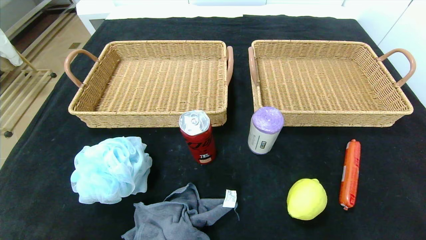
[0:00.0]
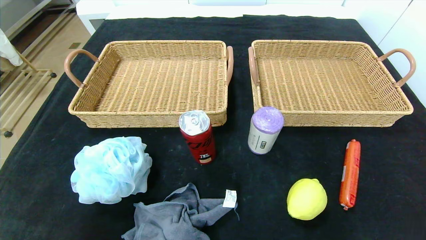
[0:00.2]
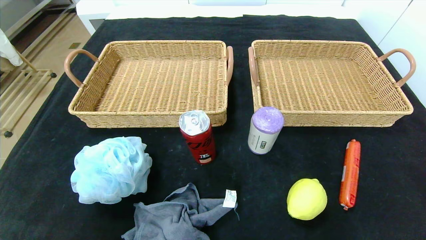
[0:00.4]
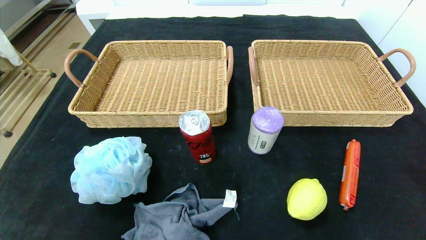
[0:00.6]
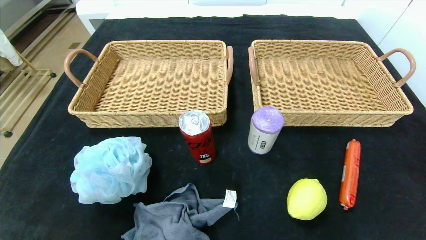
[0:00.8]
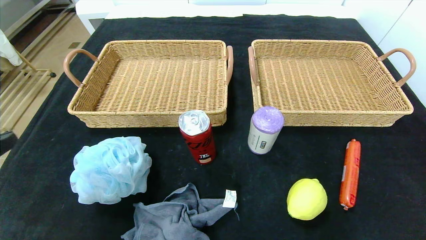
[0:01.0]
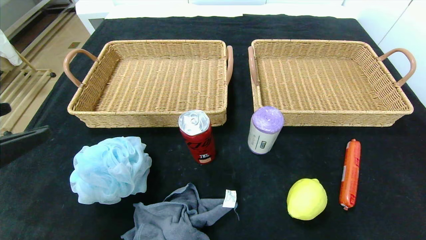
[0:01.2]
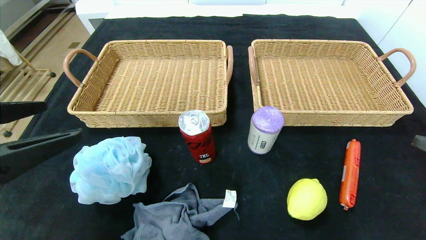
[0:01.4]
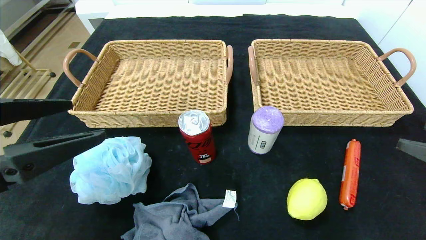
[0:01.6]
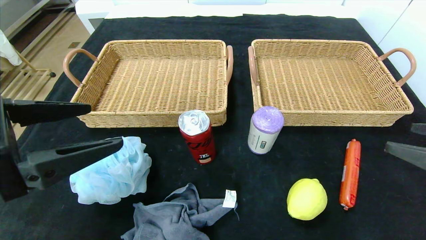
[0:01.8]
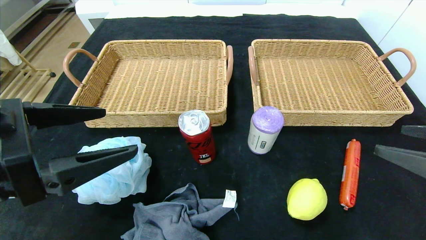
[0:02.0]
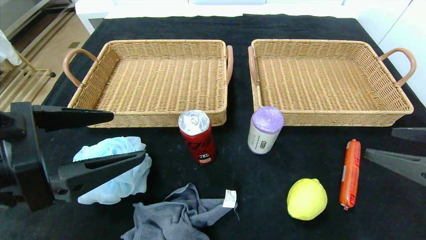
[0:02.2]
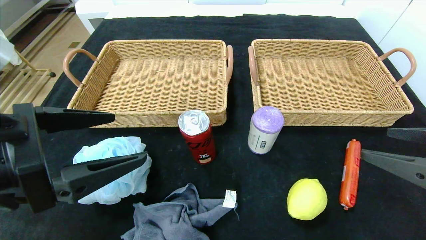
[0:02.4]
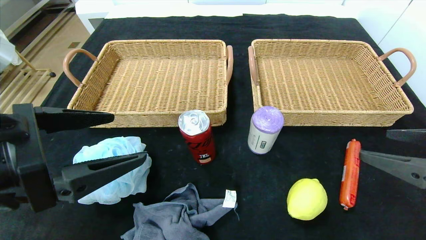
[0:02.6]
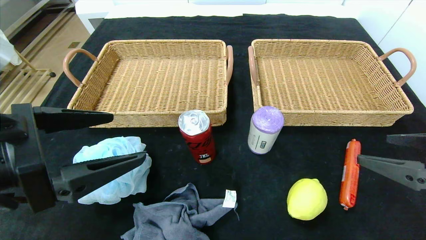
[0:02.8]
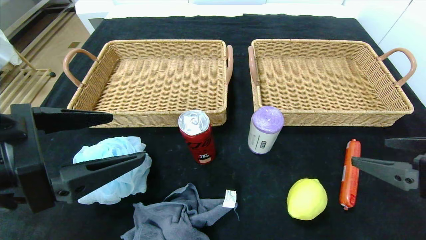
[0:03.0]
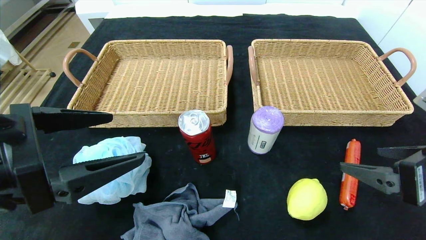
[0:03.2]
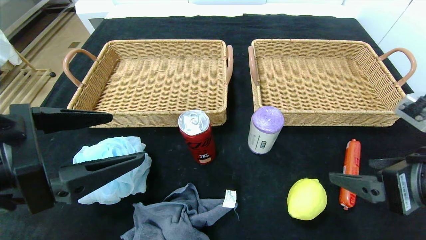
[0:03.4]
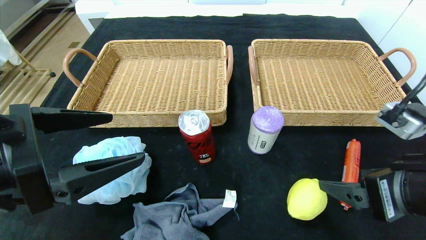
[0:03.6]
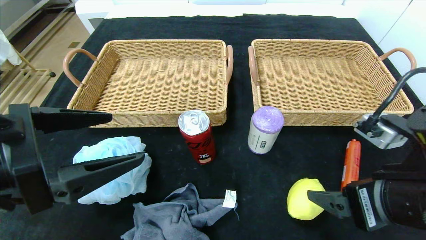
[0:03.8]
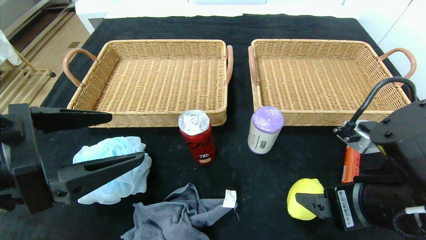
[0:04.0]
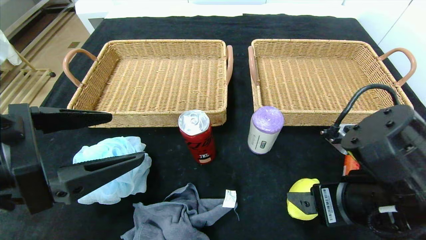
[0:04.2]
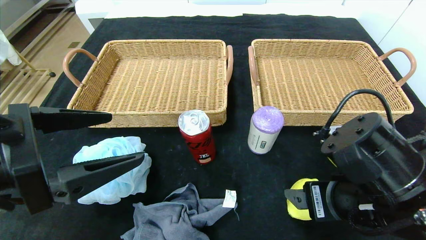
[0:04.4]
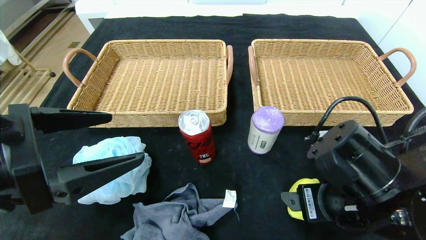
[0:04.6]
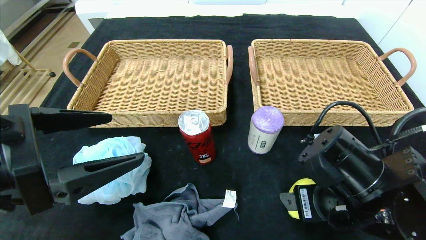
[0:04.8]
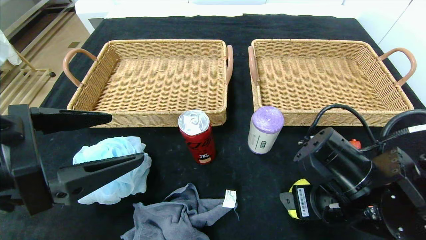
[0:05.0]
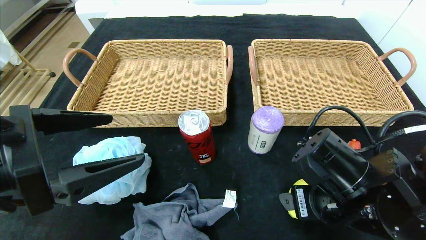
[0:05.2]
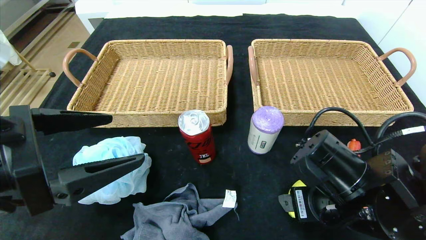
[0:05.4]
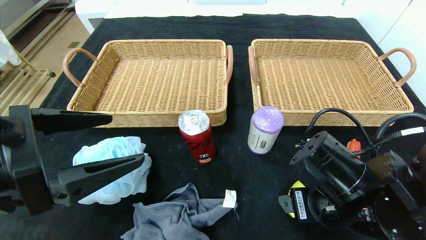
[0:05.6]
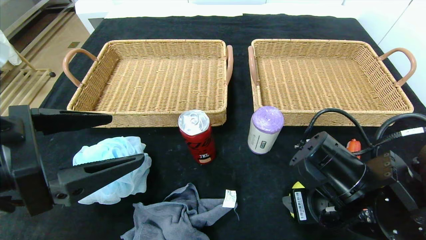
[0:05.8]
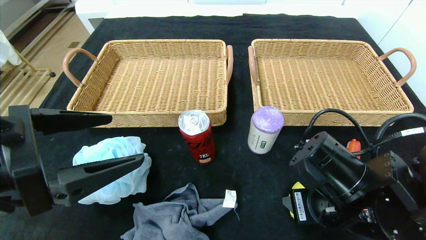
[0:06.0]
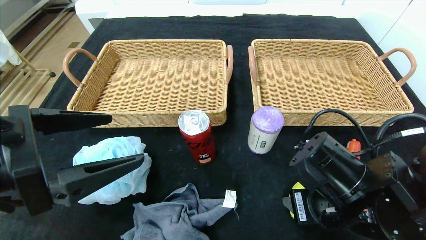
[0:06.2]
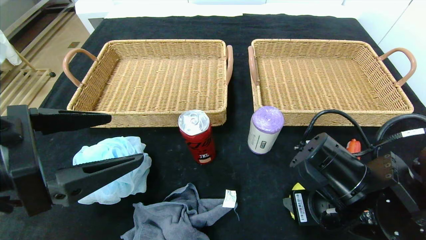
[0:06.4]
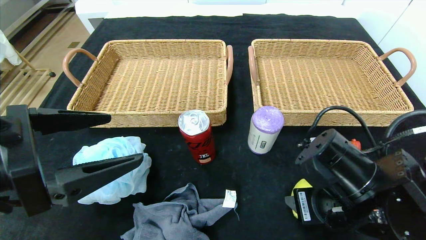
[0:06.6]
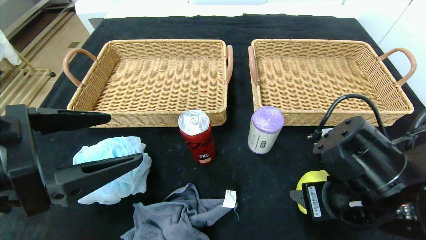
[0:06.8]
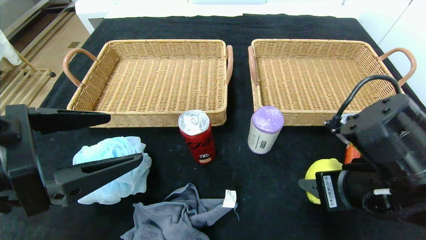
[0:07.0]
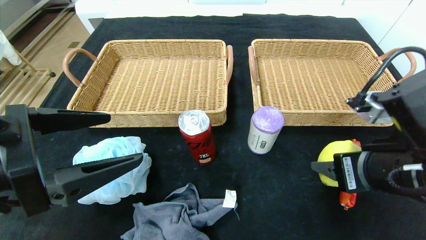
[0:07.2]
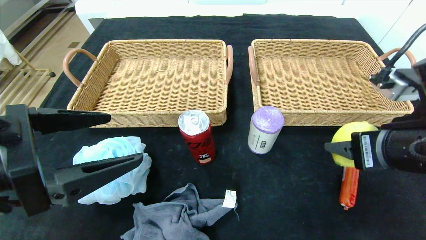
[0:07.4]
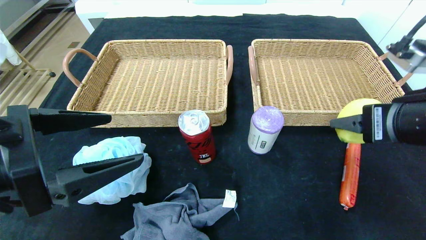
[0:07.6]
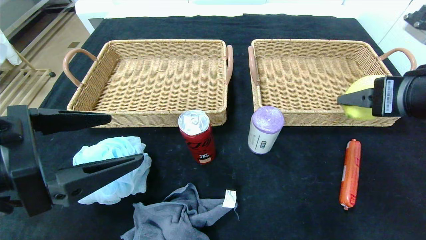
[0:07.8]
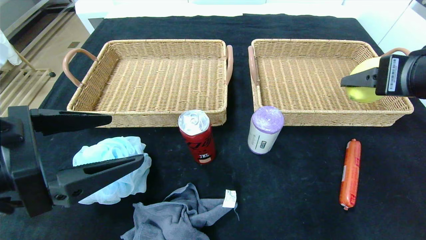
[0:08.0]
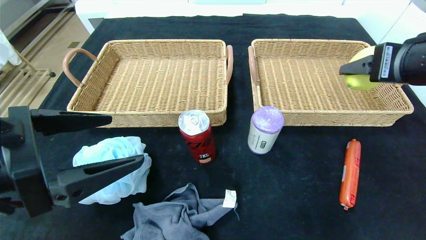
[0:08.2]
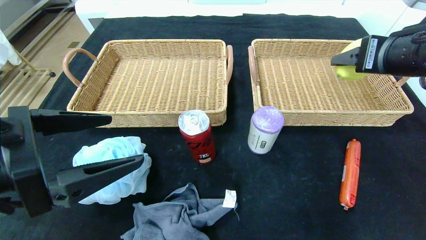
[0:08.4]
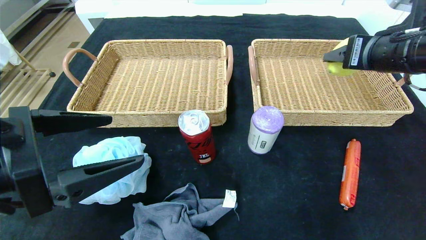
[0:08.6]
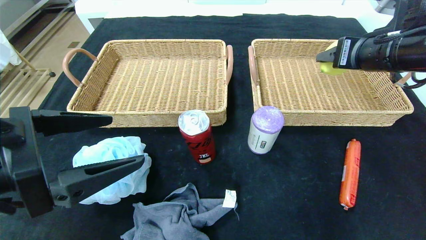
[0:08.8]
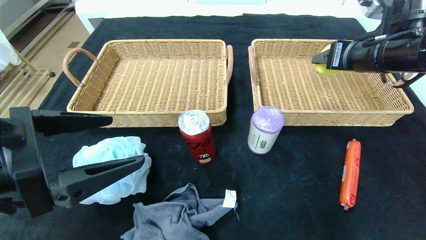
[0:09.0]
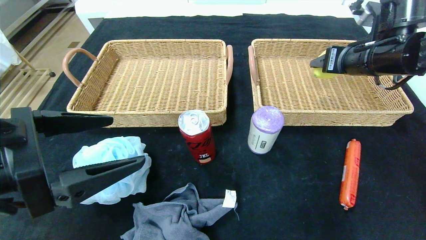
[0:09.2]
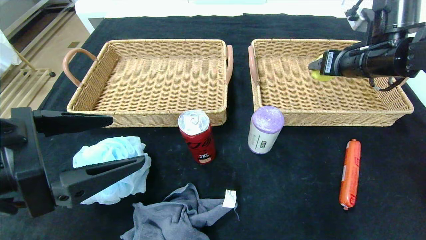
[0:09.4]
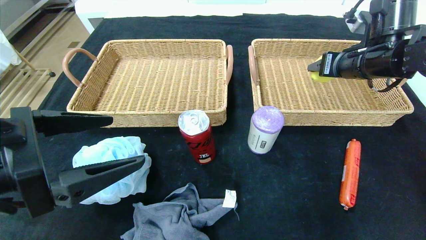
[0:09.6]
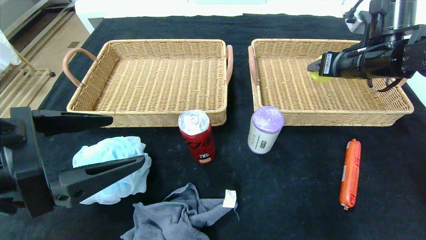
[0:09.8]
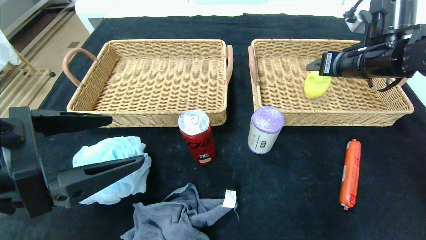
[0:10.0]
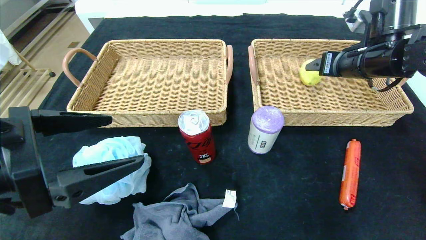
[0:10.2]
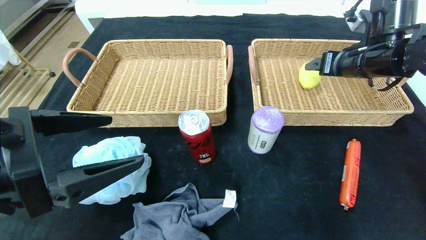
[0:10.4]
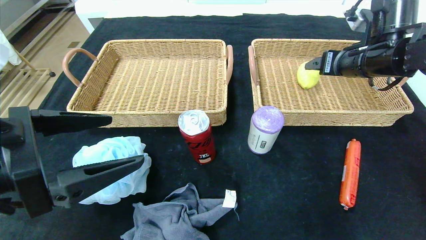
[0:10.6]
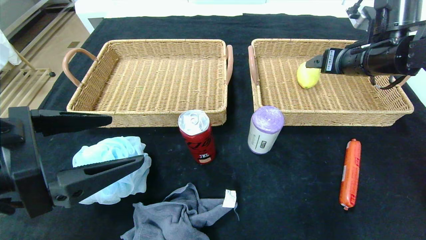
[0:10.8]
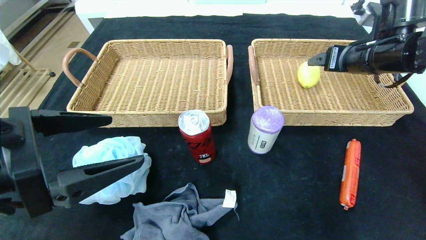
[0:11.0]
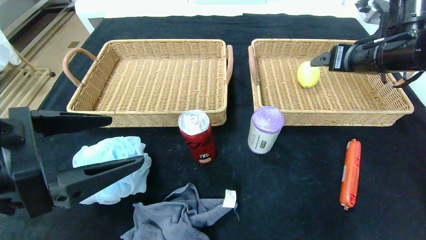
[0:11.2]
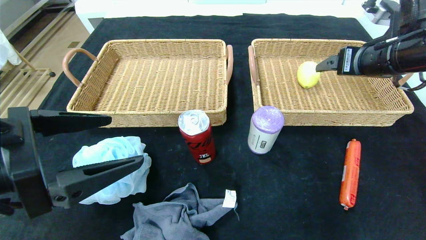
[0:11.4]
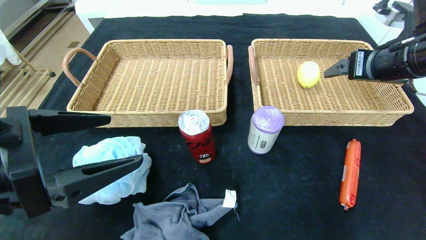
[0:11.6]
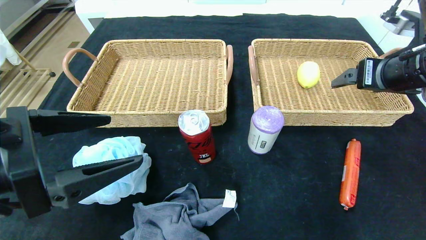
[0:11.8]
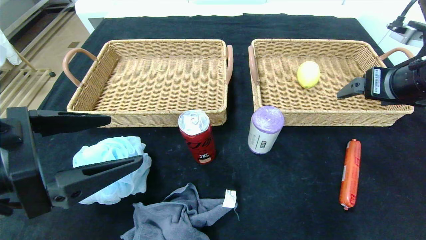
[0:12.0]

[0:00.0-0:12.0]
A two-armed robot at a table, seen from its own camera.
Step, 0:00.0 to 0:10.2: Grasp the lemon and put it in the right basket.
0:00.0 to 0:01.6: The right gripper is displaced forward and upward by approximately 20 cm. Meanwhile the left gripper moves upward and forward, approximately 25 cm.
0:01.6 to 0:03.0: The right gripper moves about 5 cm.
0:03.0 to 0:04.4: The right gripper goes approximately 15 cm to the left and downward.
0:04.4 to 0:06.0: The right gripper closes.
0:06.0 to 0:07.6: The right gripper moves upward and to the right, approximately 15 cm.
0:07.6 to 0:09.0: The right gripper travels forward by about 15 cm.
0:09.0 to 0:10.4: The grippers make only small movements.
0:10.4 to 0:12.0: The right gripper heads backward, covering about 10 cm.

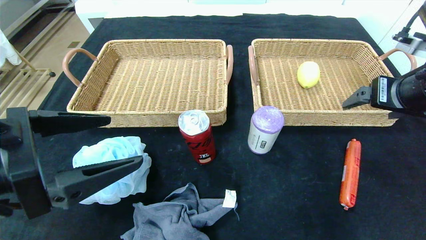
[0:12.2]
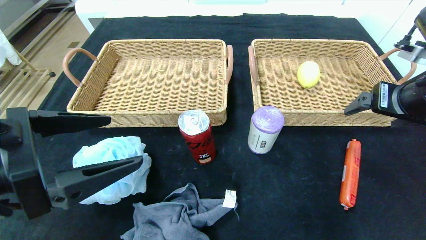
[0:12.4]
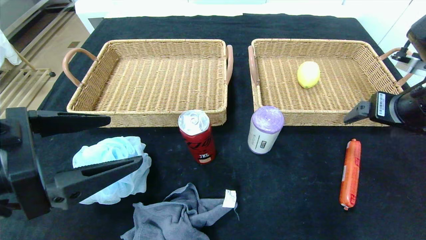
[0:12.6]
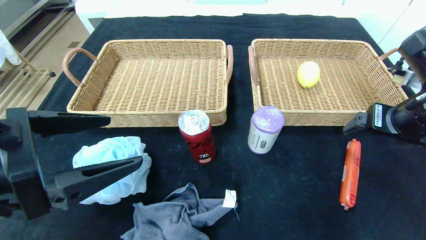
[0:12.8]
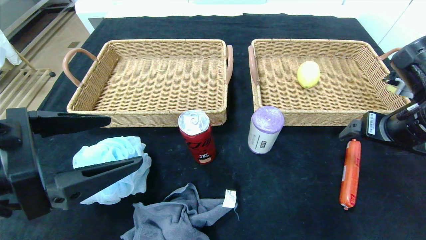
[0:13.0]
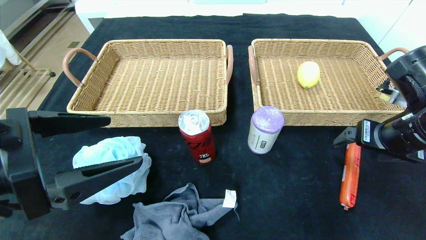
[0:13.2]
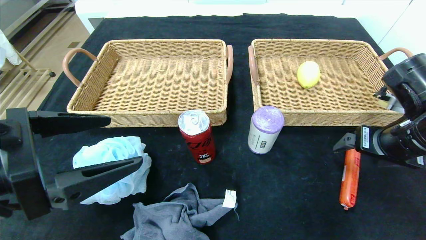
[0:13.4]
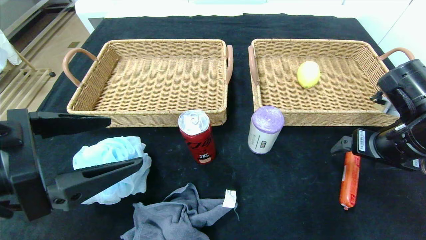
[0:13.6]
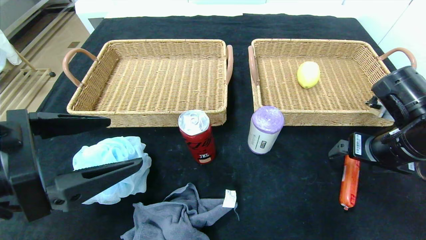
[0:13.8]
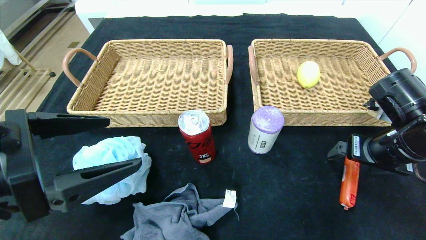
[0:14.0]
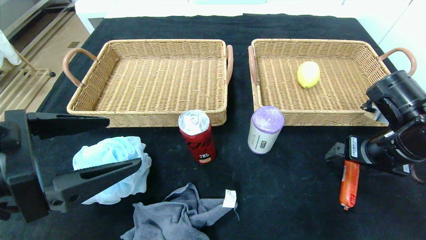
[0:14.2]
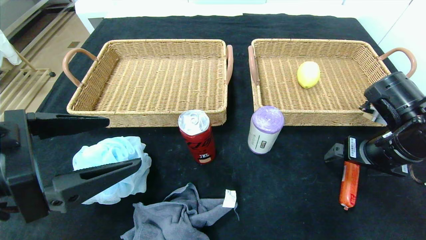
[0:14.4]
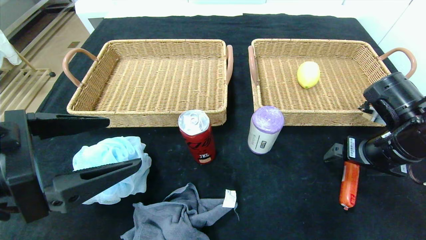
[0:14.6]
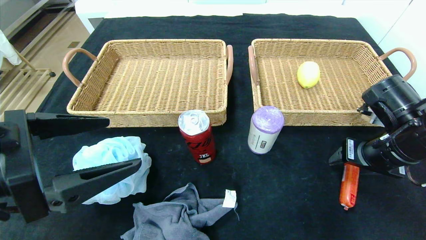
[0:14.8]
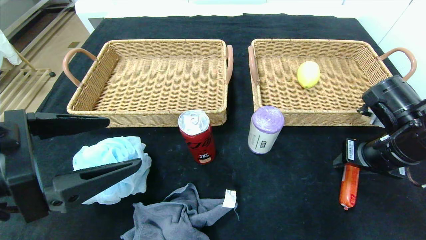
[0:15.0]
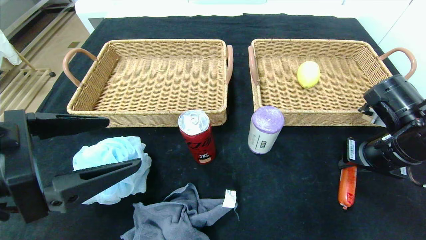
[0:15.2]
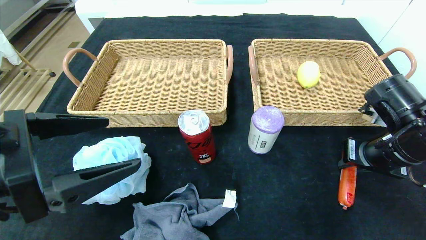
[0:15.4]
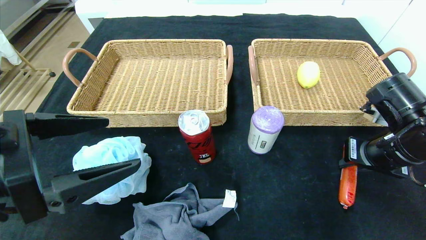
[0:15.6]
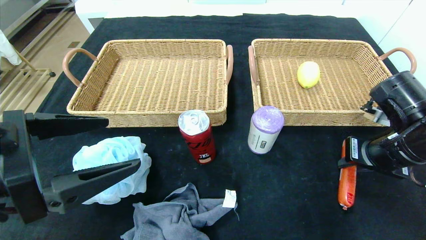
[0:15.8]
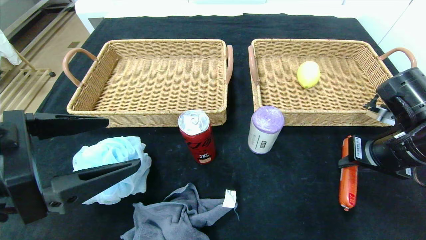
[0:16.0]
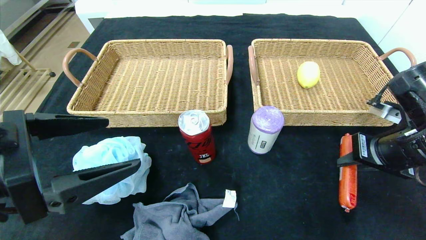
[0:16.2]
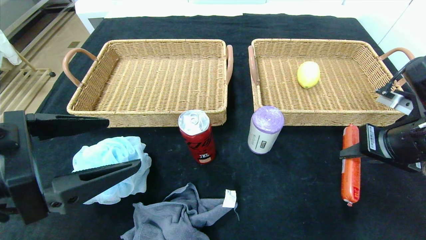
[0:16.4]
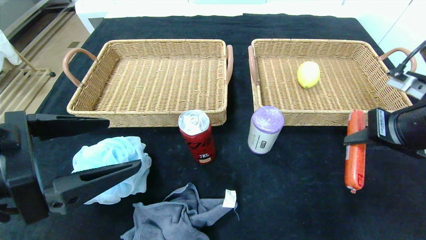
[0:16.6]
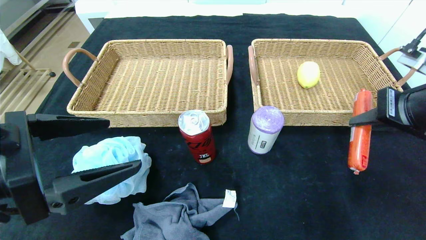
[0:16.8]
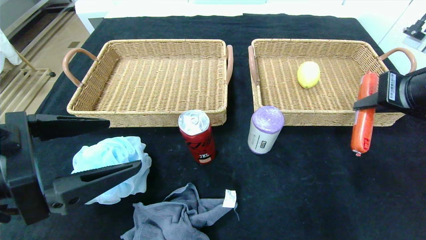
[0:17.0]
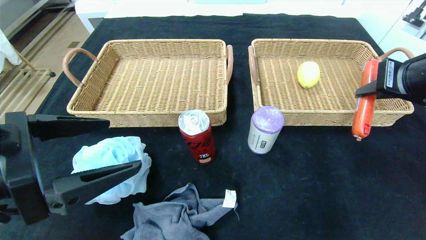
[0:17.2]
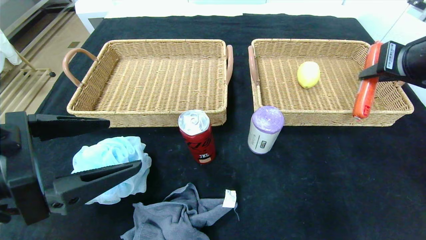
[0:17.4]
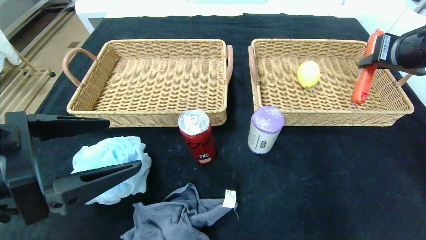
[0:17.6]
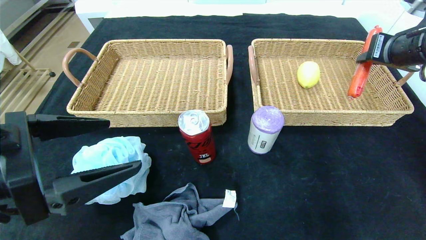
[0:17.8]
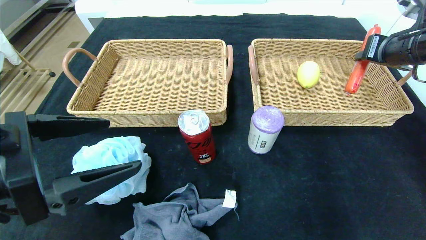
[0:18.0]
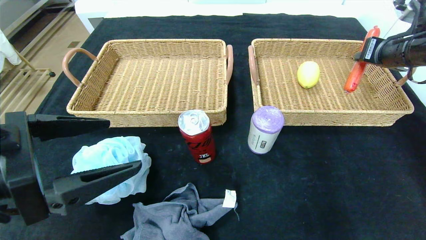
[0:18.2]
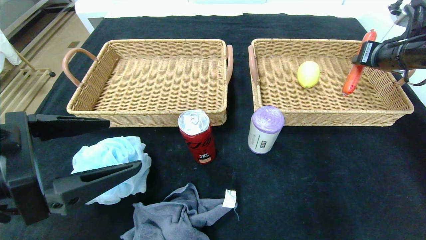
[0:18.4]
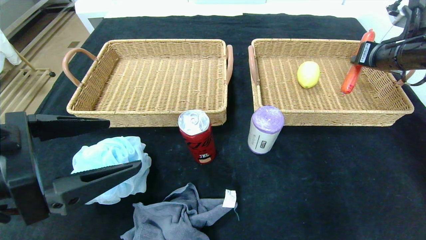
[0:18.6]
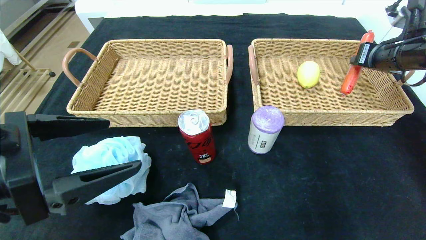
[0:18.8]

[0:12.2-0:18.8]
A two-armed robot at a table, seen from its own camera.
0:12.2 to 0:13.8: The right gripper moves downward, roughly 10 cm.
0:13.8 to 0:15.4: The right gripper closes its fingers.
0:15.4 to 0:17.2: The right gripper moves upward, about 10 cm.
0:17.2 to 0:18.8: The right gripper travels forward and to the right by some 15 cm.
